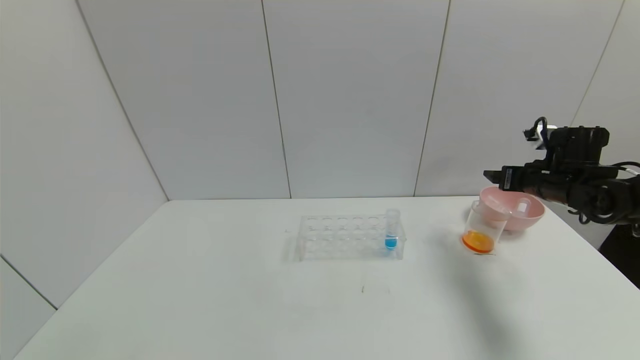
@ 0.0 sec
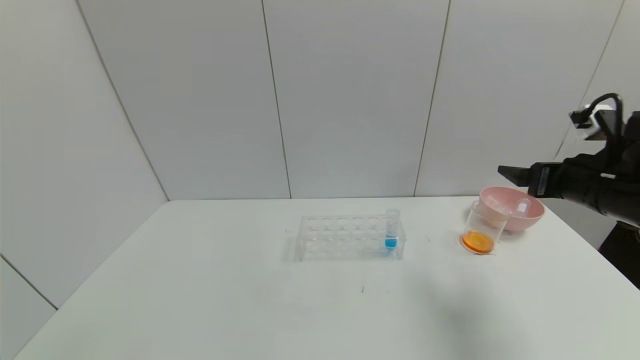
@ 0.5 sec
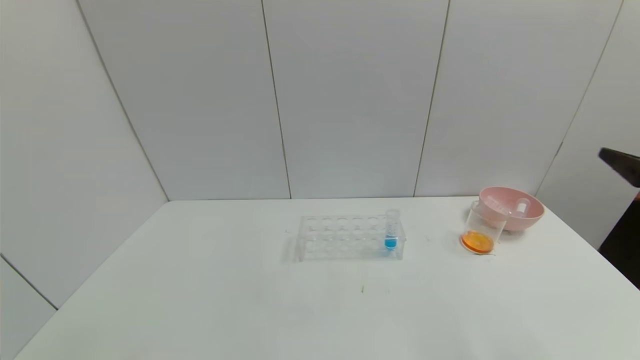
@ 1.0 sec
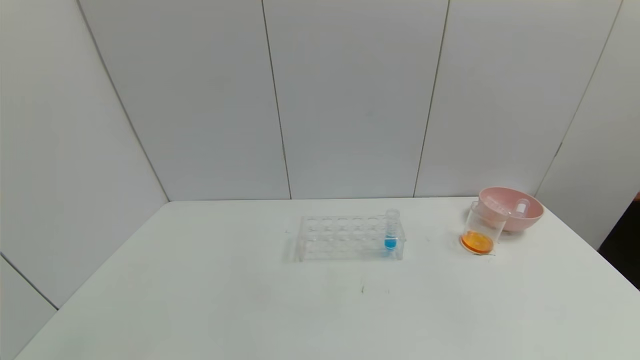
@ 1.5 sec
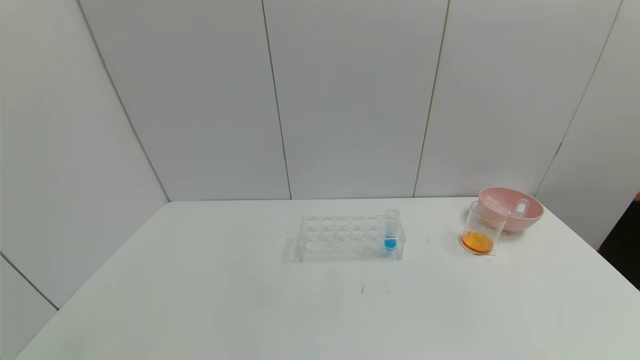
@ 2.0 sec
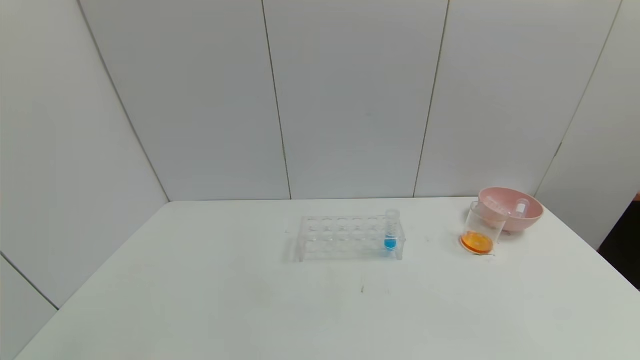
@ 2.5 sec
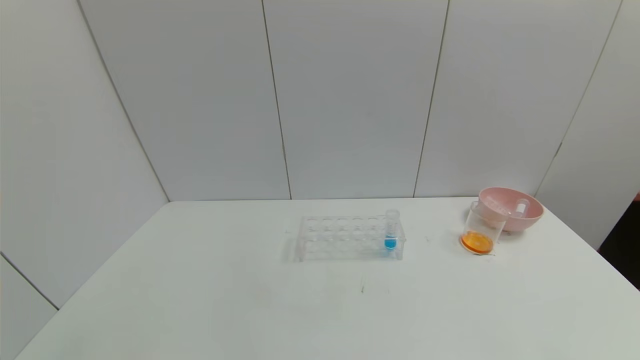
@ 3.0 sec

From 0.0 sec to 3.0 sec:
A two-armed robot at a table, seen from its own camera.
Task of the whole recording: pick up the test tube with yellow pigment and the test tube with red pigment by grippers and pour them into the beaker.
From 0.0 sec to 1.5 sec: The right gripper travels backward by about 35 cm.

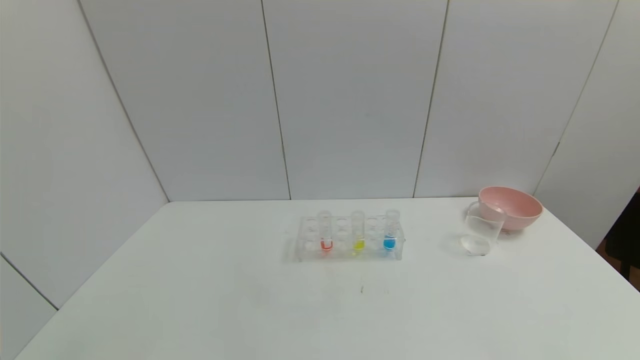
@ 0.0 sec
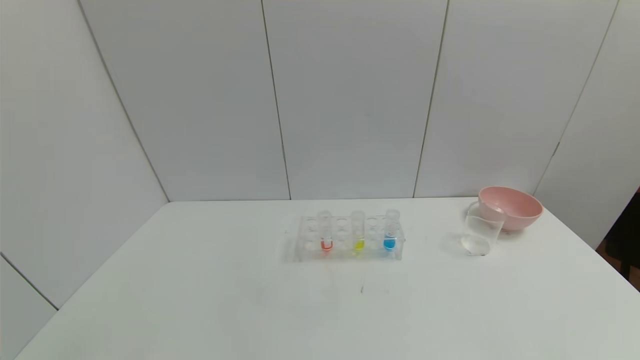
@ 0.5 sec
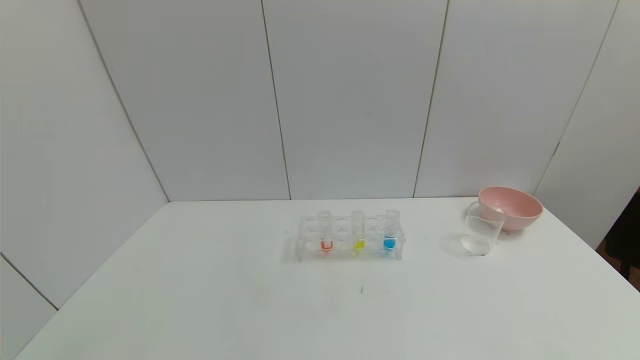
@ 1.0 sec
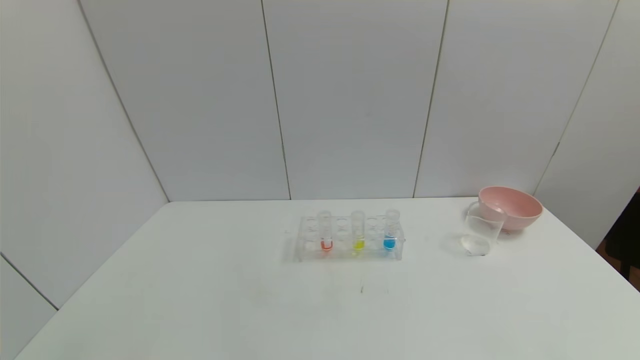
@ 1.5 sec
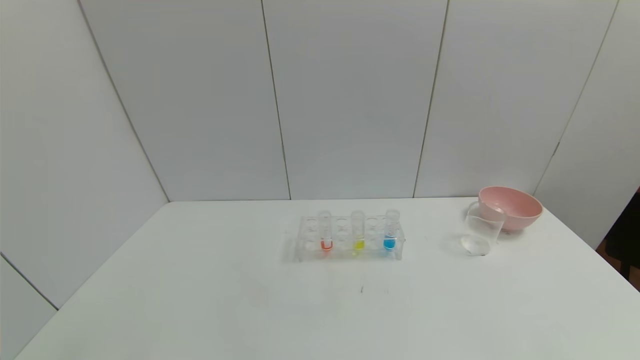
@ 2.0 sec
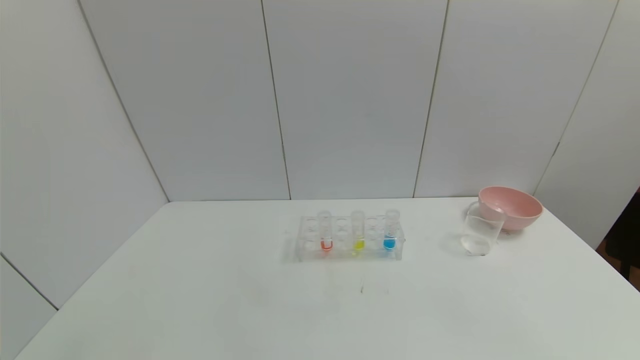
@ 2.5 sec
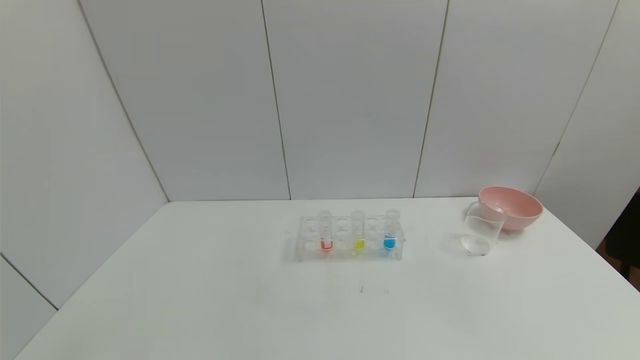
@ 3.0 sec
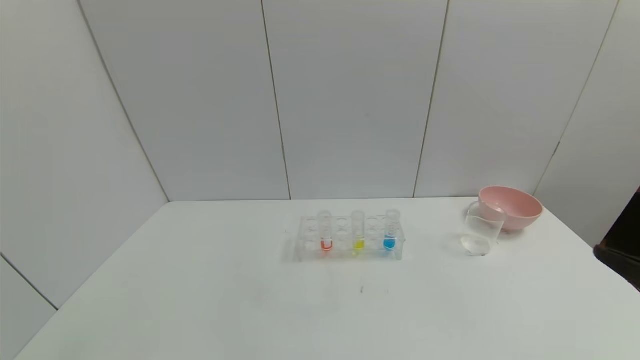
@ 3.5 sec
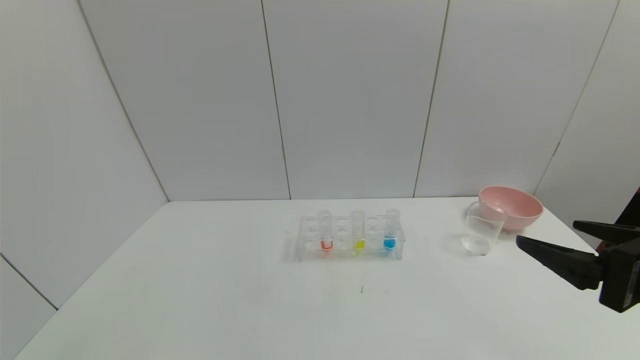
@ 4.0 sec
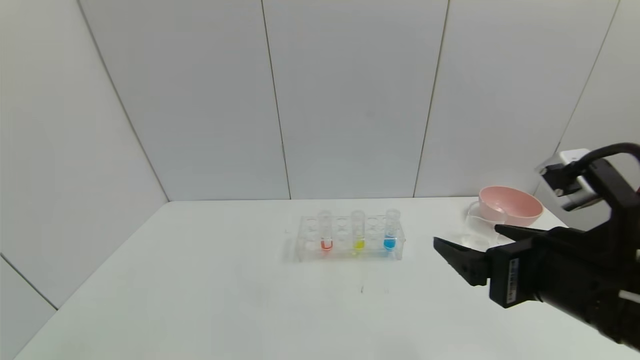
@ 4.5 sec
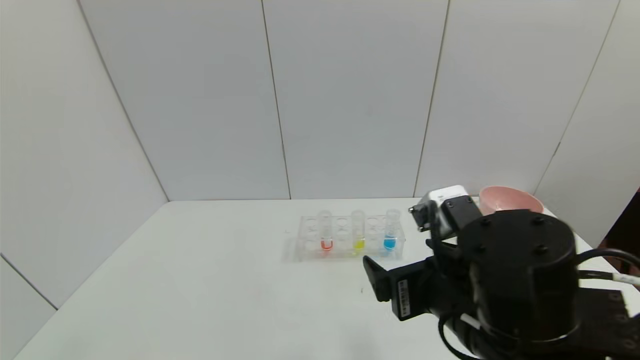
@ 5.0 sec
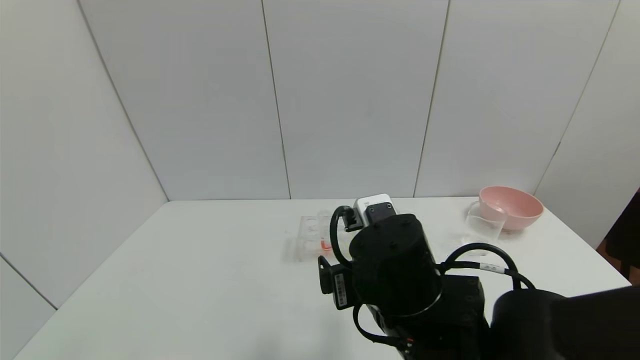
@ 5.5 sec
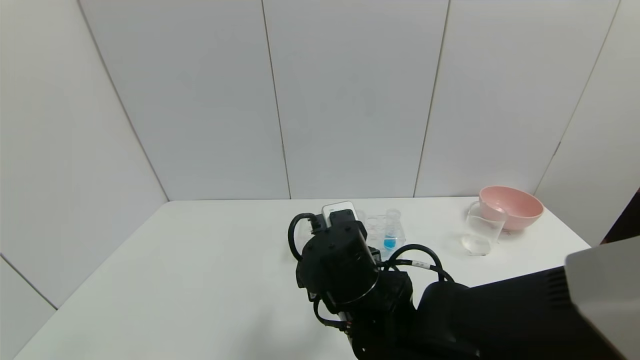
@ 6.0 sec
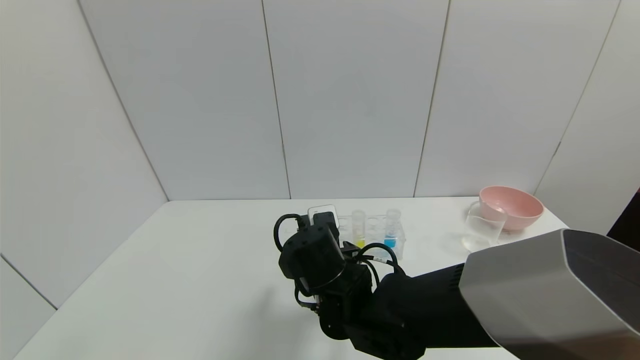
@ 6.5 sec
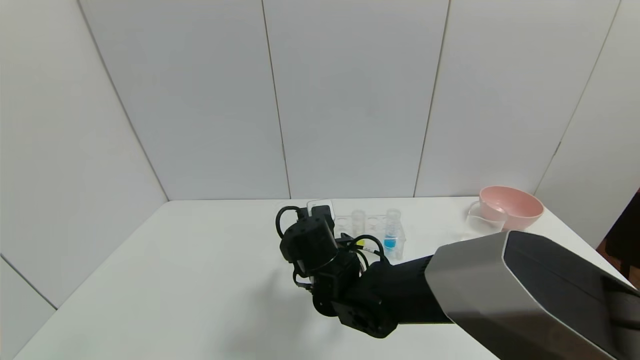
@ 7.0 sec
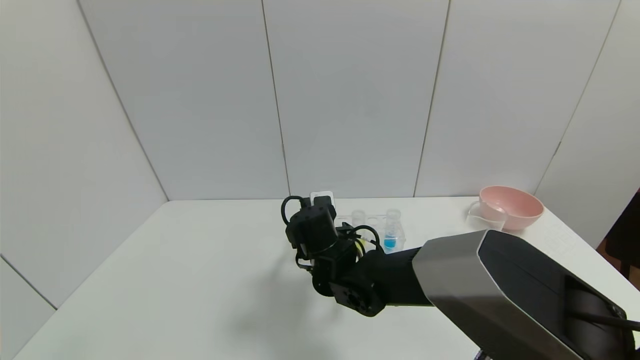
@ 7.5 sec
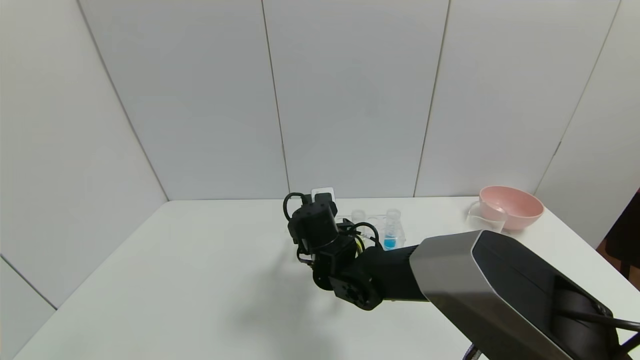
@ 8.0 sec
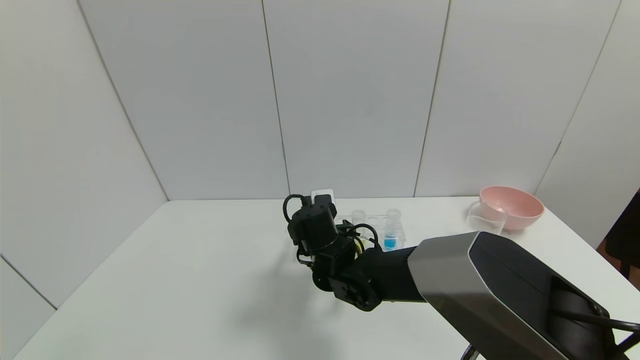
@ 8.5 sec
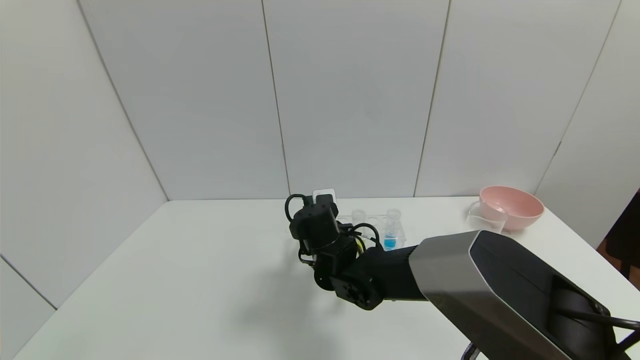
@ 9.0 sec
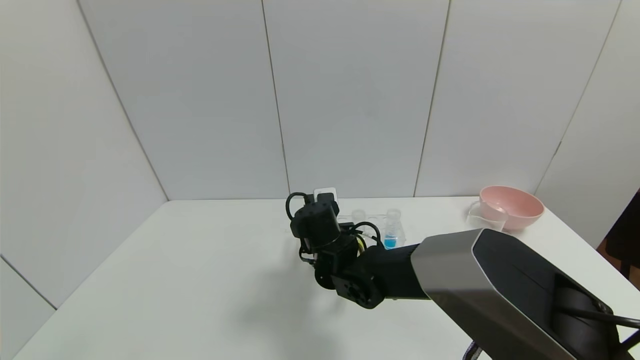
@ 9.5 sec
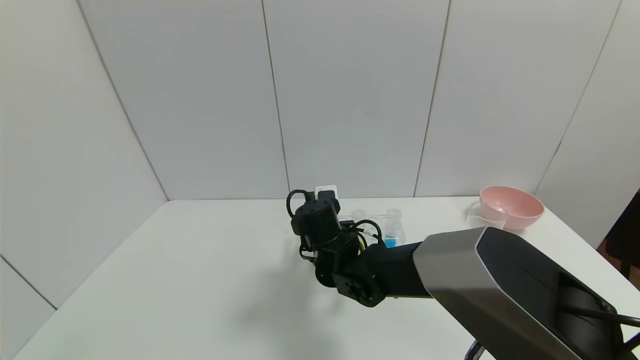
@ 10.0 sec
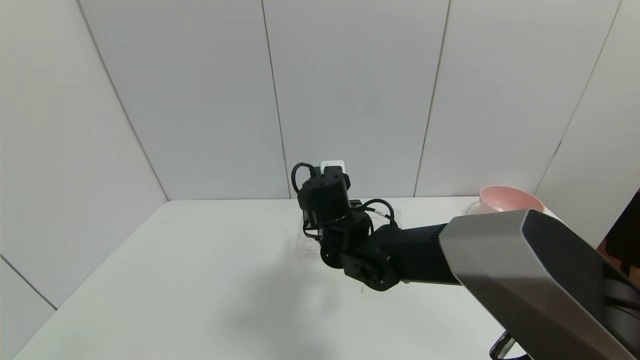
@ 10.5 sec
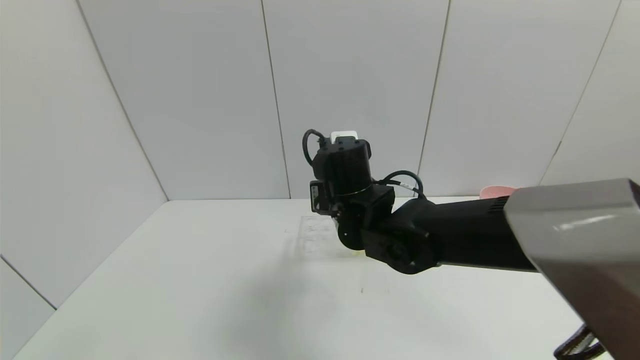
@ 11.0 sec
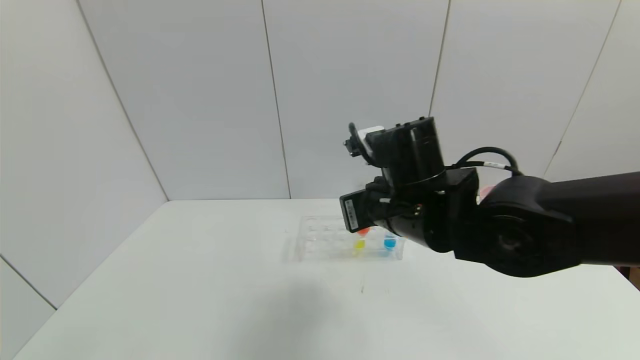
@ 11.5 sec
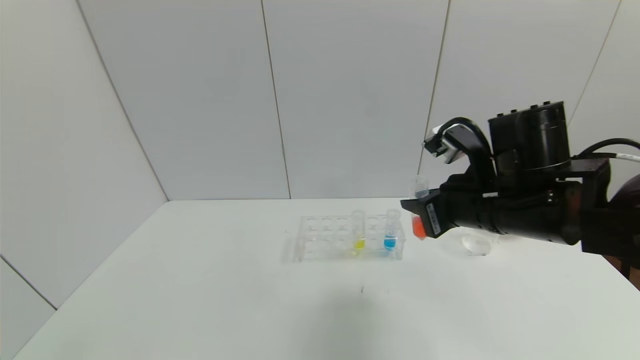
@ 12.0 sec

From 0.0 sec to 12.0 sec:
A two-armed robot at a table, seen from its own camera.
Task of the whole recording: pick up the test tube with yellow pigment and the test tube with red pigment by grippers and pour them into the beaker.
Step, from 0.0 sec to 9.0 sec: Grasp the red reagent with the right gripper.
From 2.0 sec to 4.0 sec: The right gripper moves forward, upward and to the left, some 25 cm.
From 4.0 sec to 6.0 sec: The right gripper is displaced to the left and downward by some 30 cm.
From 6.0 sec to 8.0 sec: The right gripper shifts some 15 cm forward and downward.
From 8.0 sec to 10.0 sec: The right gripper closes.
From 10.0 sec to 12.0 sec: The right gripper is displaced to the right, upward and backward by some 25 cm.

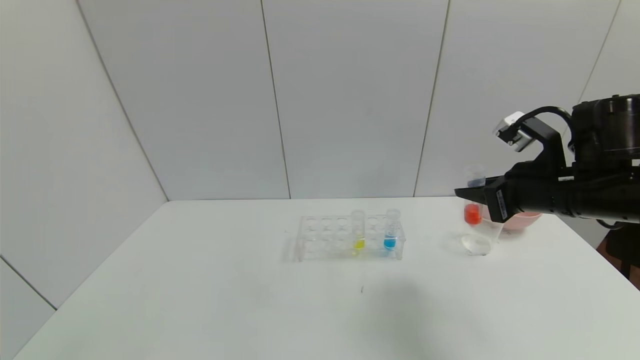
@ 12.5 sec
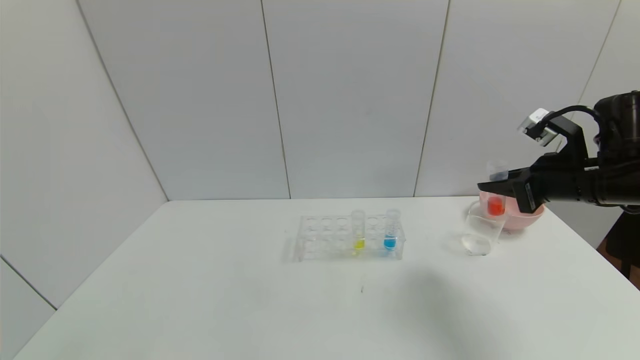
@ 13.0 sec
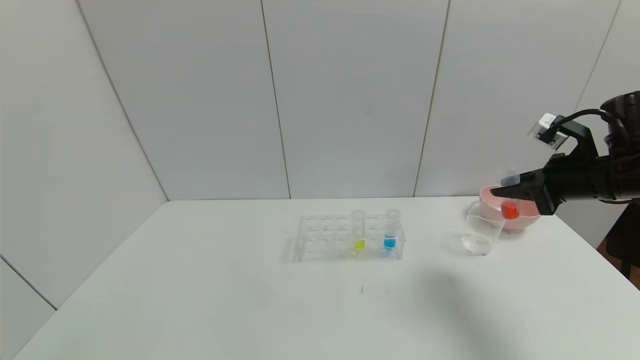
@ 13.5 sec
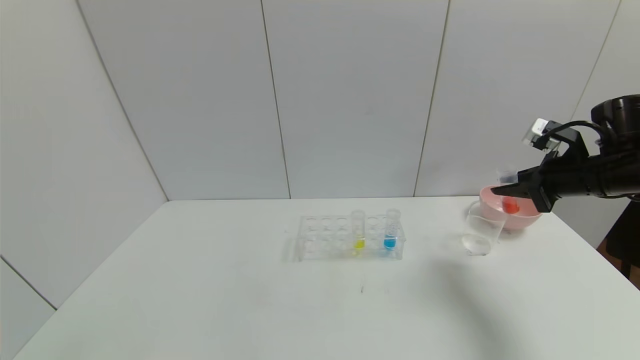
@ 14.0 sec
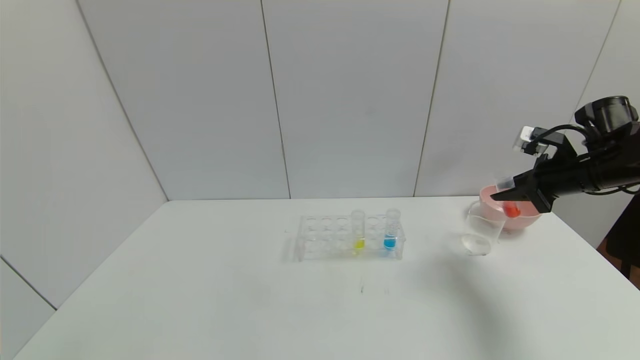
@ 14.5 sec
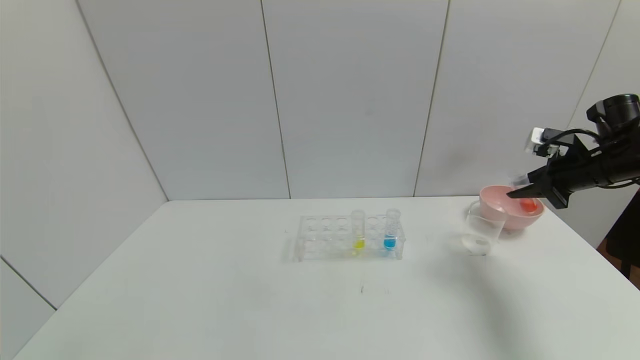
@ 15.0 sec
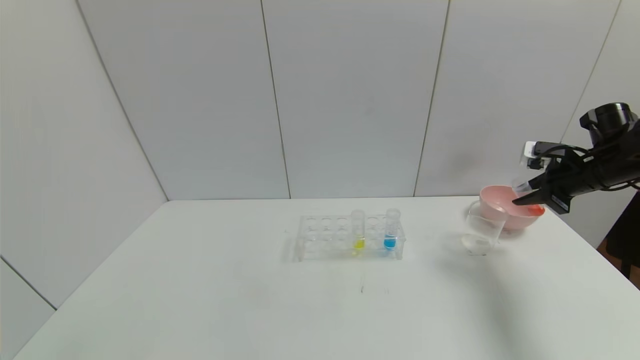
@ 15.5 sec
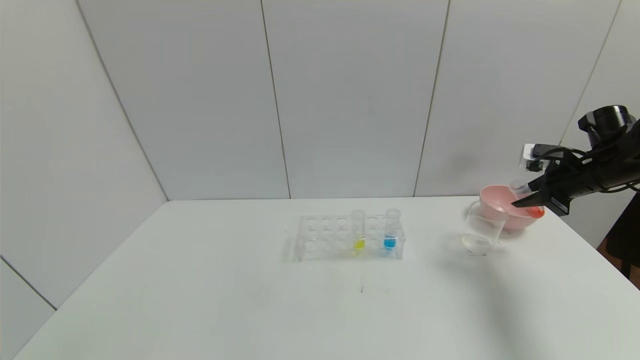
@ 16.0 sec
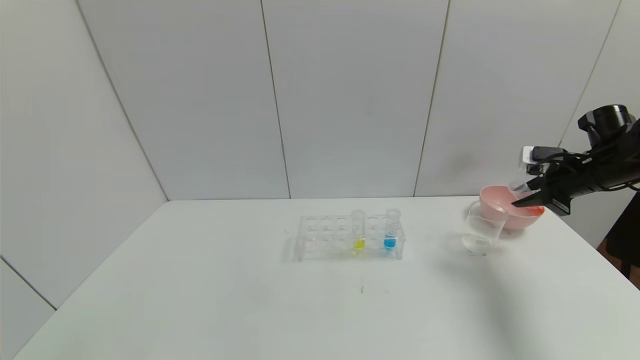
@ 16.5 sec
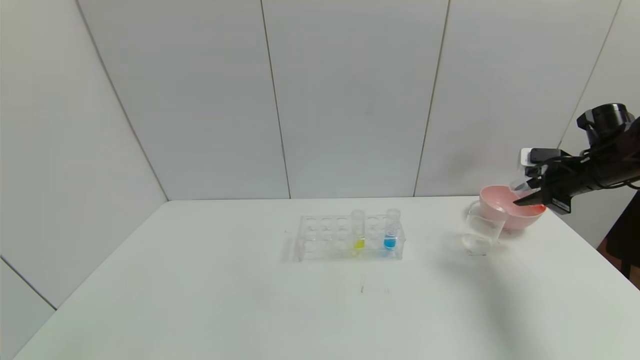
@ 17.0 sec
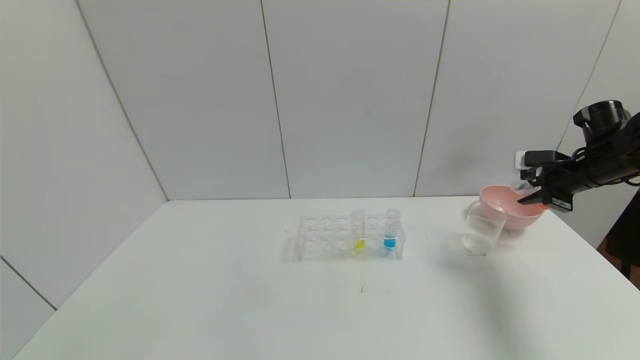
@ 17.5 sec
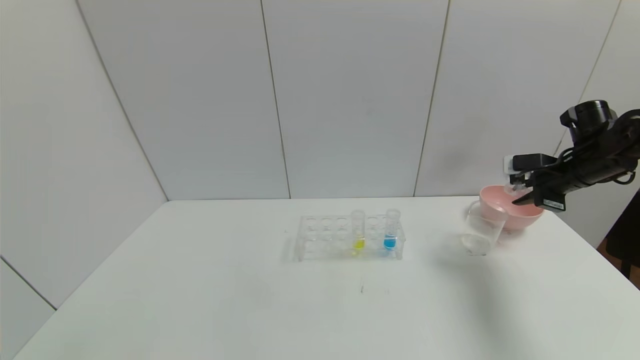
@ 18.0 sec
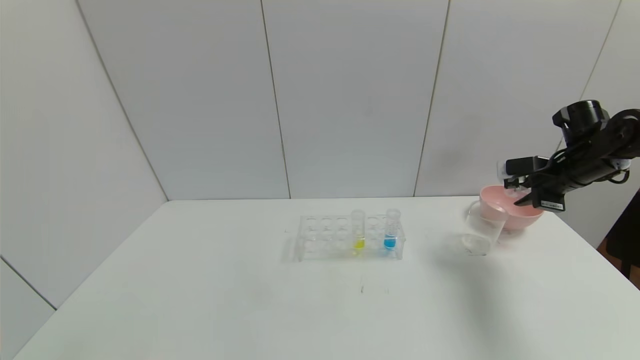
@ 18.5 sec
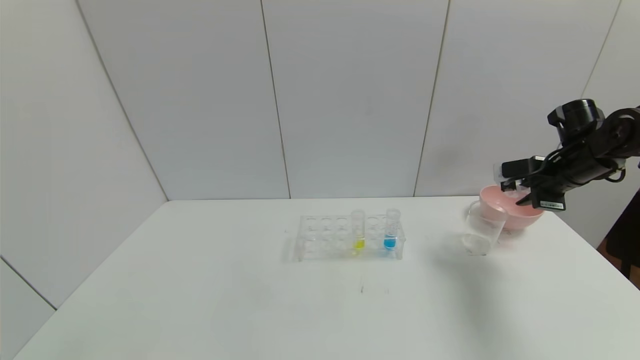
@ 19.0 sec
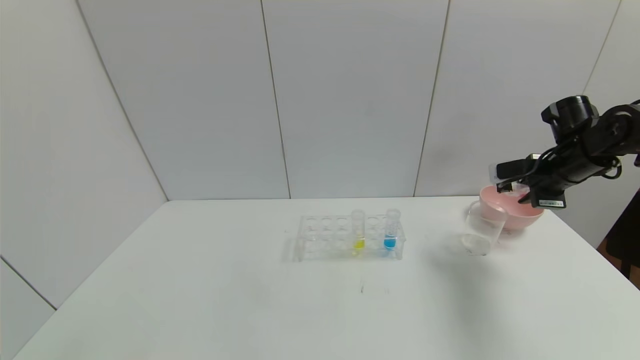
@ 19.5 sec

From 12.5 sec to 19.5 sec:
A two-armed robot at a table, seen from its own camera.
Task of the whole recording: pick up the test tube with yellow pigment and the test tube with red pigment by grippers and pour them into the beaker.
From 12.5 sec to 14.5 sec: The right gripper moves to the right and forward, about 15 cm.
From 14.5 sec to 16.0 sec: The right gripper changes place by roughly 5 cm.
From 16.0 sec to 17.5 sec: There are only small adjustments of the grippers.
